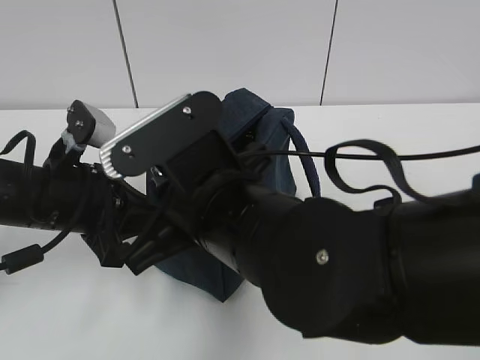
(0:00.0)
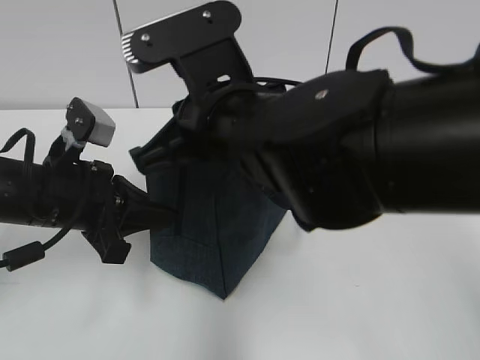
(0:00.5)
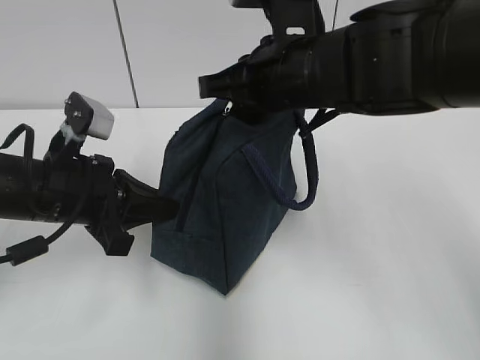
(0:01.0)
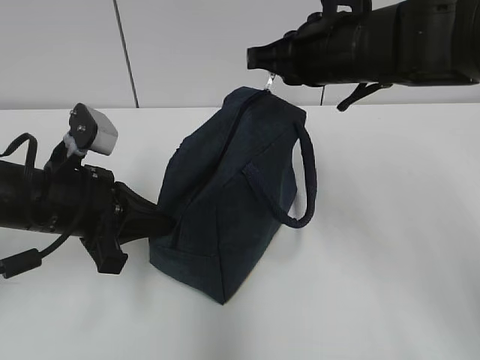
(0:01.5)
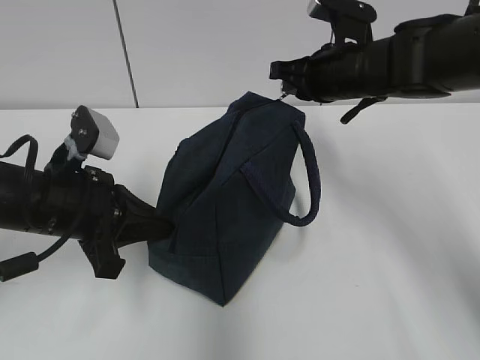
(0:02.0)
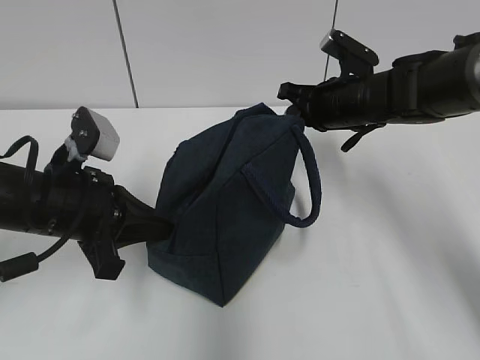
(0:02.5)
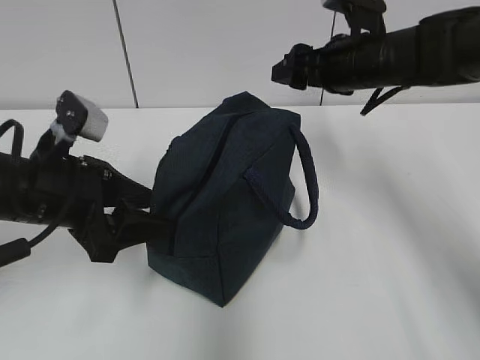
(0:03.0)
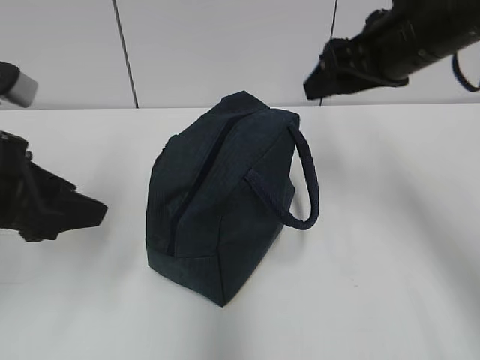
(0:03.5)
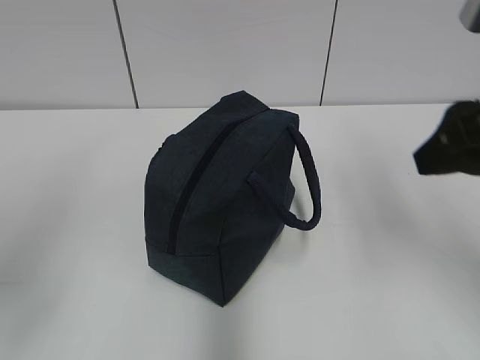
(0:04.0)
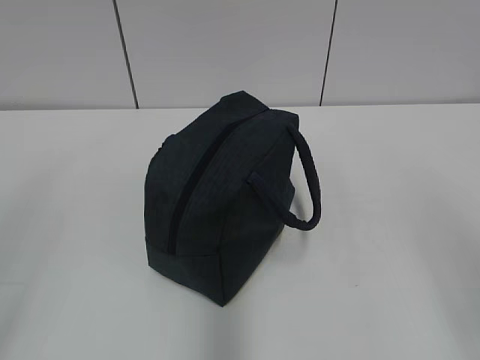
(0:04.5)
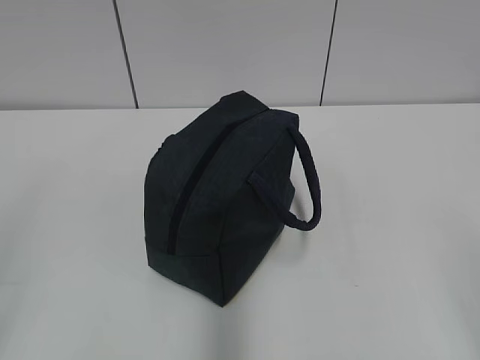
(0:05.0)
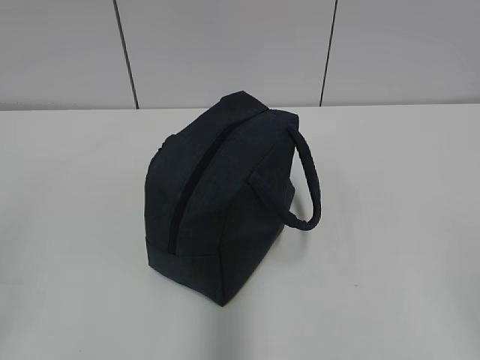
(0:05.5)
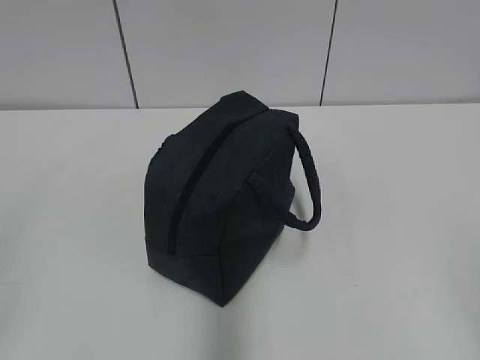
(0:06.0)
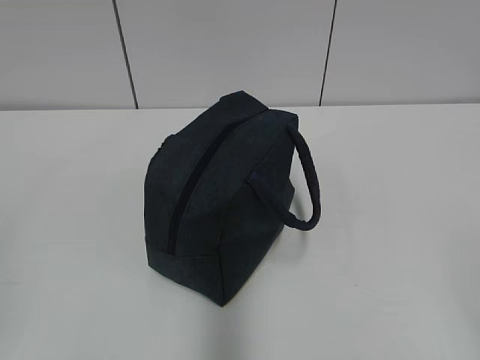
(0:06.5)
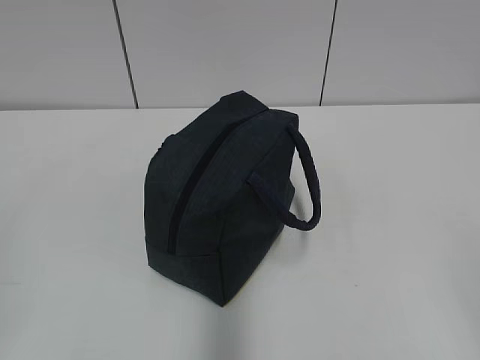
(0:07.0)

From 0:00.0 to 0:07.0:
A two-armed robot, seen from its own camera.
From 0:00.0 to 0:02.0: The right gripper travels forward and to the right by roughly 25 cm.
From 0:02.0 to 0:03.5: The right gripper travels backward and upward by some 10 cm, and opens, while the left gripper moves upward, some 10 cm, and opens.
From 0:03.5 to 0:05.0: The left gripper is displaced backward and to the left by approximately 20 cm, while the right gripper moves backward, approximately 35 cm.
